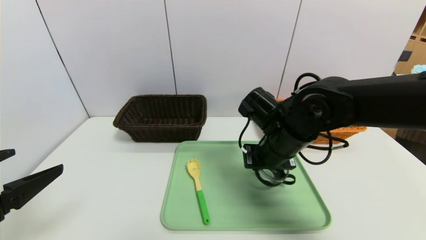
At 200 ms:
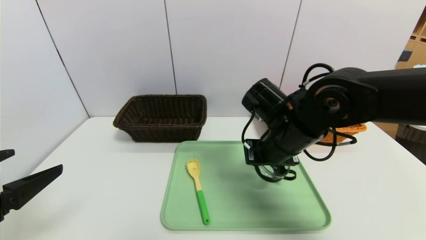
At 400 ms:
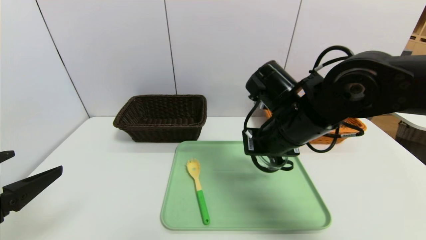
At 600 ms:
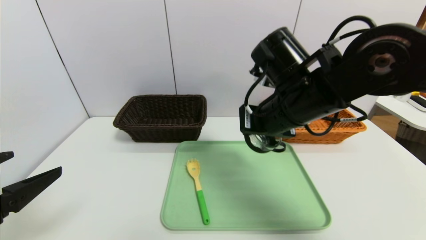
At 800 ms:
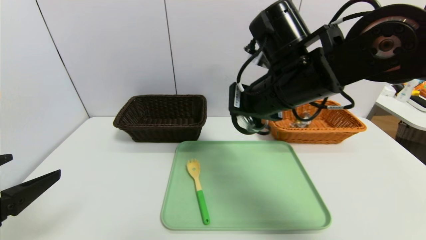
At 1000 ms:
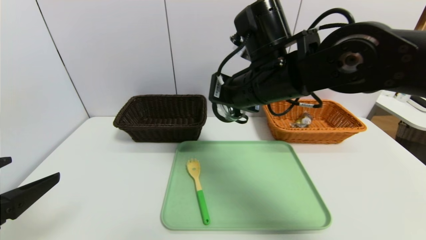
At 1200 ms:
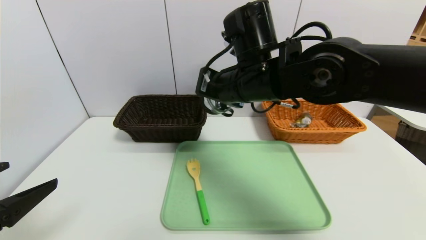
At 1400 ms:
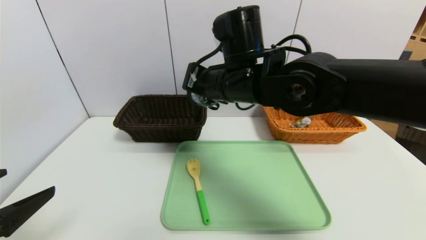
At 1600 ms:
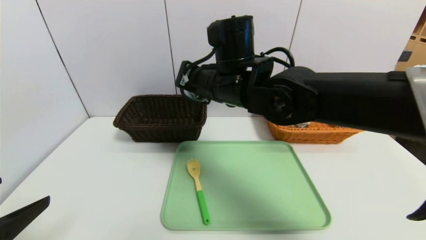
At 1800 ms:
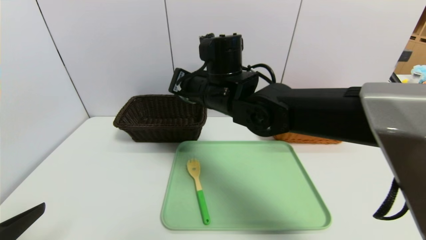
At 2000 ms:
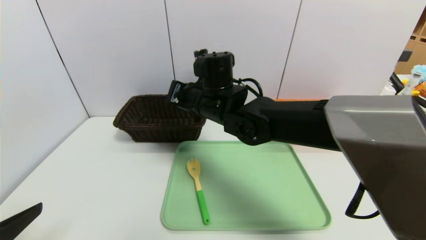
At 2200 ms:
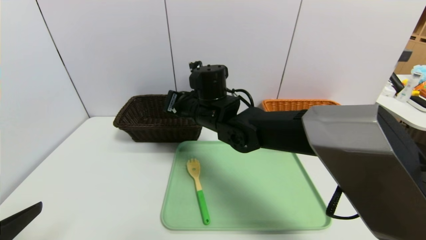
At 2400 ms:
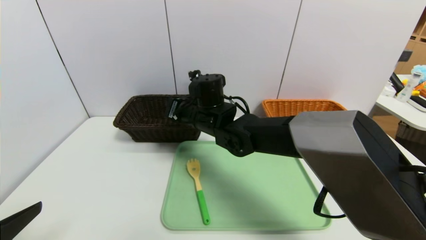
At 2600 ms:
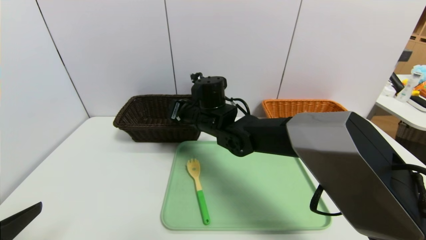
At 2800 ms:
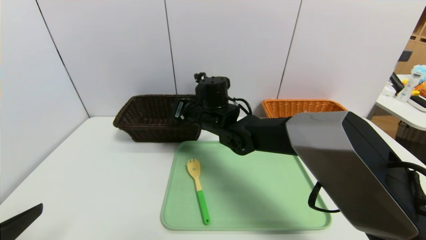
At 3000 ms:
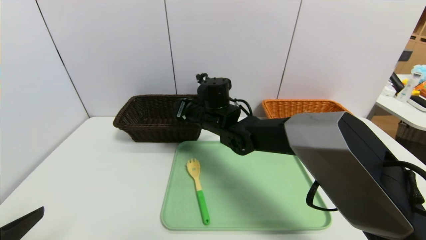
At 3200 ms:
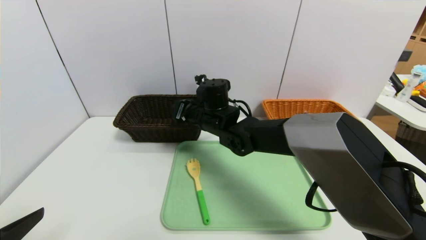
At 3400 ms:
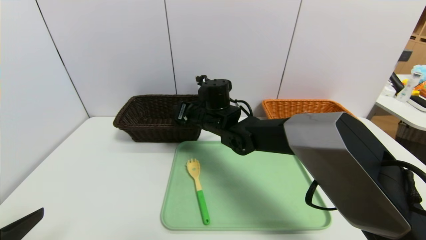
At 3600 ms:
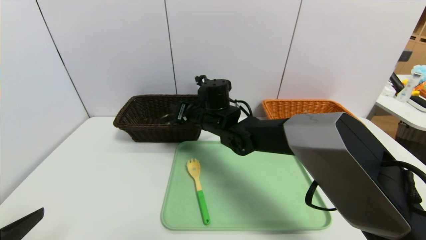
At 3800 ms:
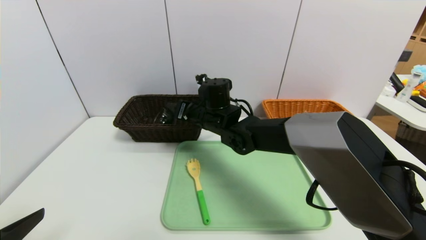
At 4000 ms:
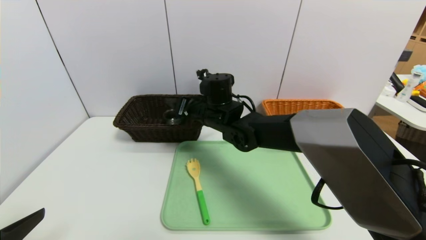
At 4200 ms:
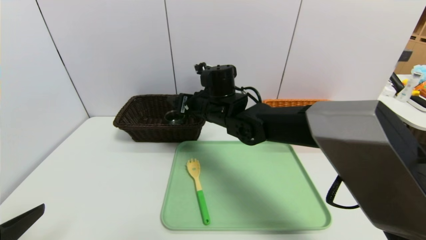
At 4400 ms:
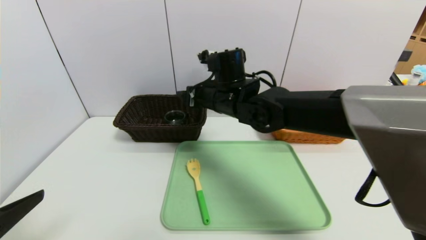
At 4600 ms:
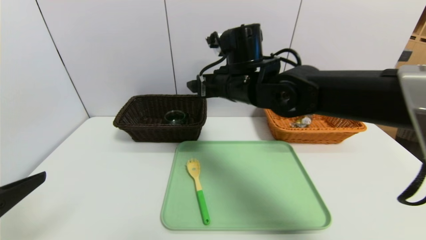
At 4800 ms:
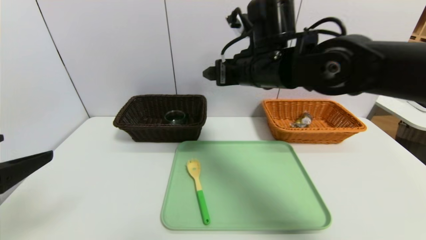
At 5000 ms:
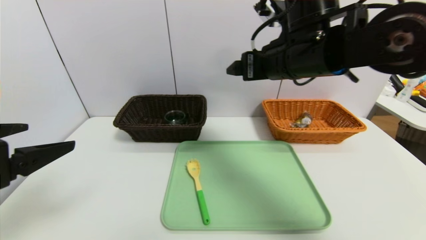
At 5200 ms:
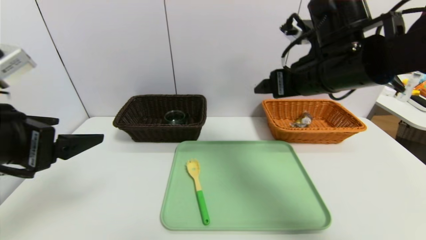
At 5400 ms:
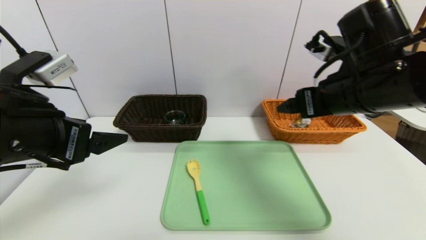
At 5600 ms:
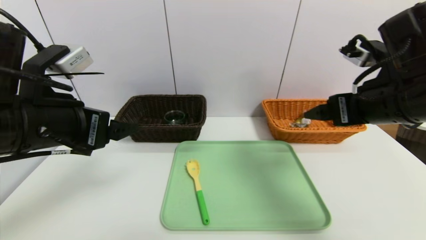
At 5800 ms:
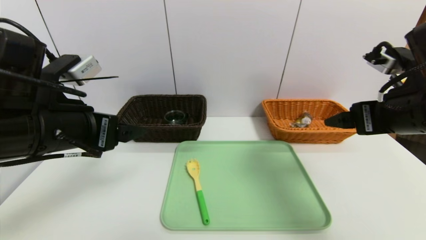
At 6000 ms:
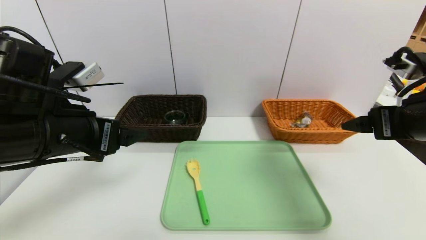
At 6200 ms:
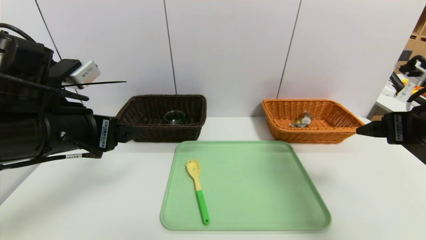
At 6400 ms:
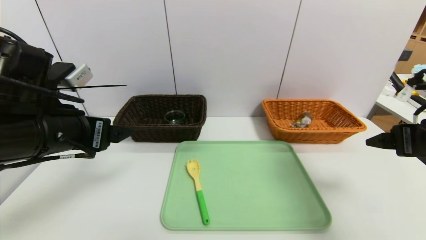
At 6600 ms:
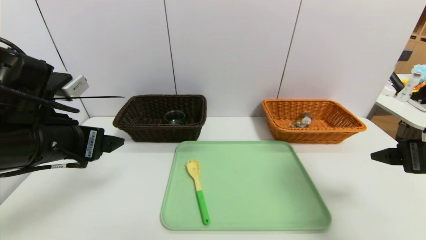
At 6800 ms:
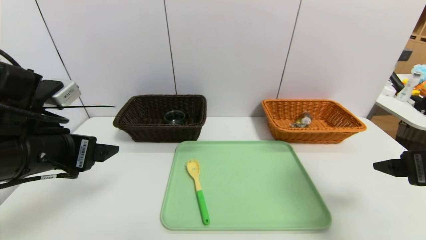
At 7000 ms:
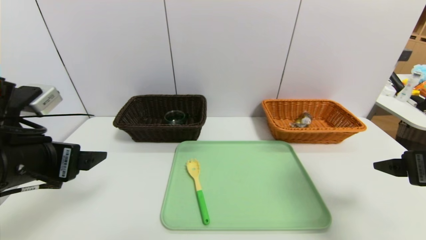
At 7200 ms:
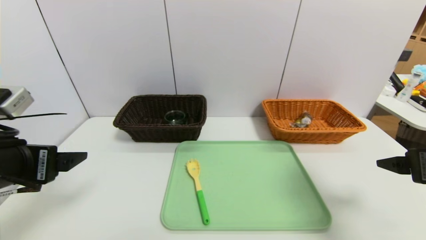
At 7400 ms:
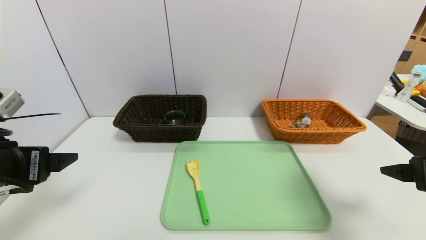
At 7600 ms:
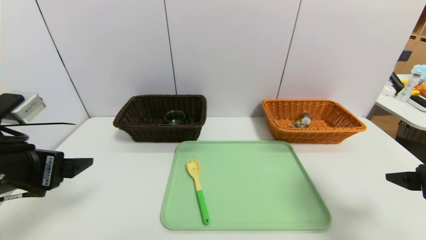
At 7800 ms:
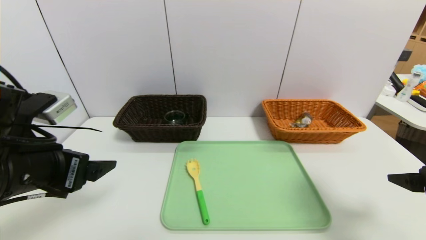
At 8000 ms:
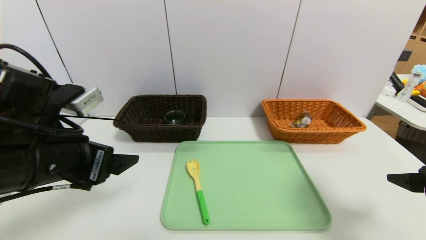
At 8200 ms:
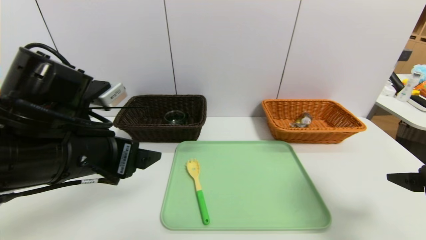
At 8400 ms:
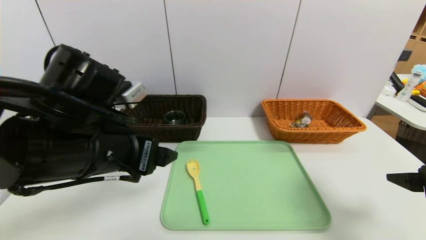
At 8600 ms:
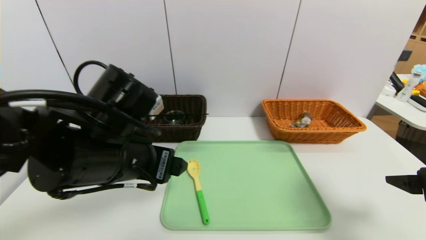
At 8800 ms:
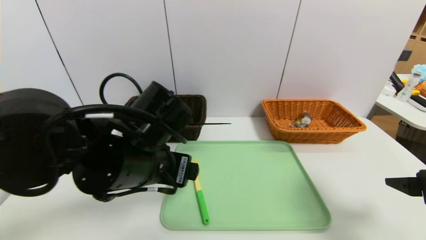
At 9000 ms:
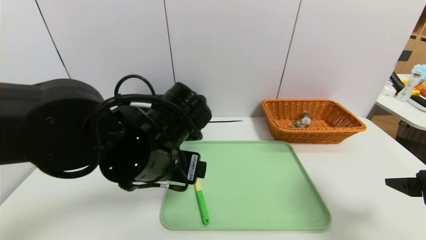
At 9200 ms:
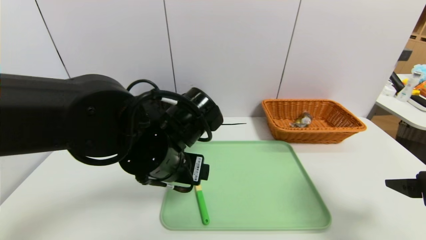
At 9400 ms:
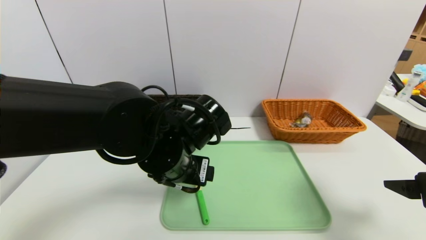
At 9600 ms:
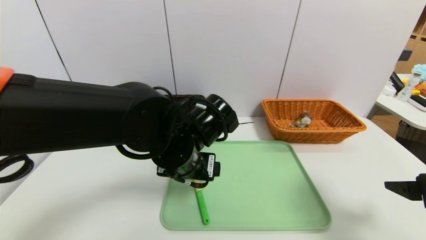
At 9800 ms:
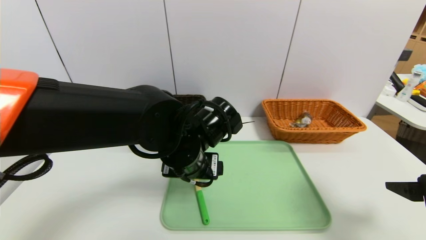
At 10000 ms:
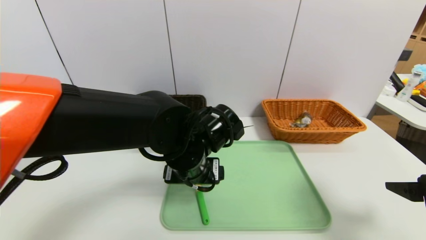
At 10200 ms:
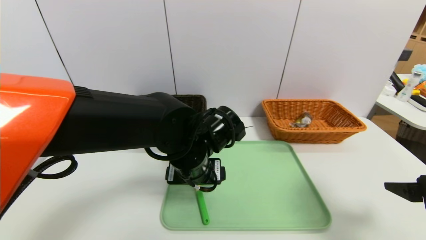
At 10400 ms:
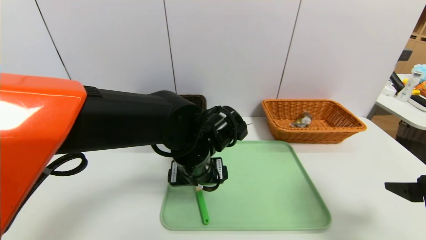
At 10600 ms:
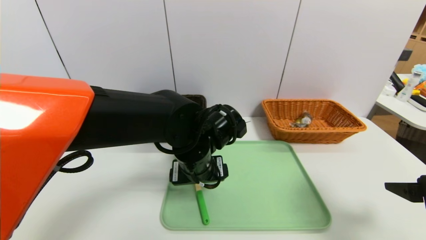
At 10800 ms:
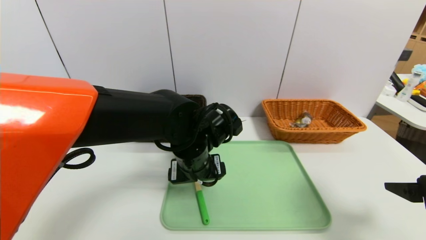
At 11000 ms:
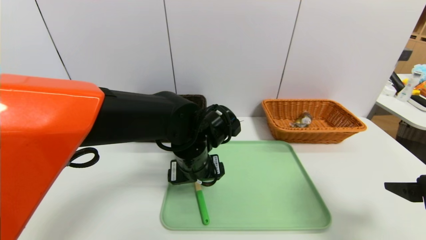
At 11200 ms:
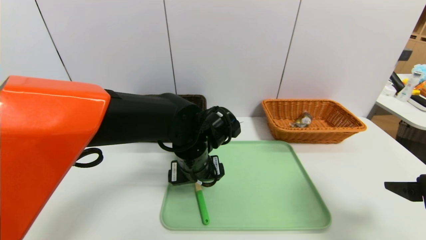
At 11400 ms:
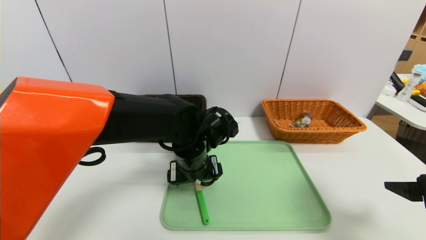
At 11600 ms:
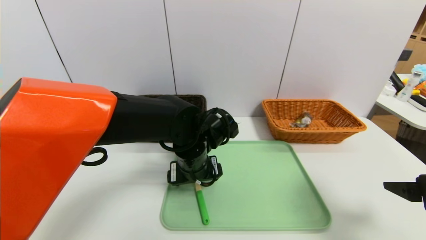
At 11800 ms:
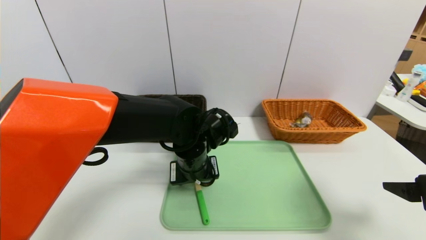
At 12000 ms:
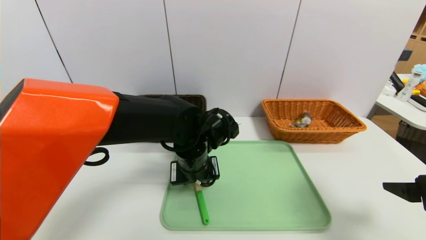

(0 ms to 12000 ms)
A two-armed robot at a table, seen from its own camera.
Task of the whole recording: place the food in the right basket with the right gripper, and place the non food items in the left basket with the left gripper.
0 ms - 1600 ms: The right gripper travels to the left and upward by approximately 15 cm.
1600 ms - 3000 ms: The right gripper travels downward and forward by some 15 cm.
3000 ms - 4400 ms: The right gripper heads upward, covering approximately 5 cm, and opens.
4400 ms - 6000 ms: The right gripper travels to the right and backward by approximately 30 cm; the left gripper travels forward and to the right by about 15 cm.
6000 ms - 7600 ms: The right gripper moves backward and downward, roughly 10 cm. Meanwhile the left gripper shifts approximately 5 cm to the left.
7600 ms - 9000 ms: The left gripper moves to the right, approximately 20 cm.
9000 ms - 10400 ms: The left gripper moves to the right, some 5 cm.
10400 ms - 12000 ms: The left gripper closes its fingers.

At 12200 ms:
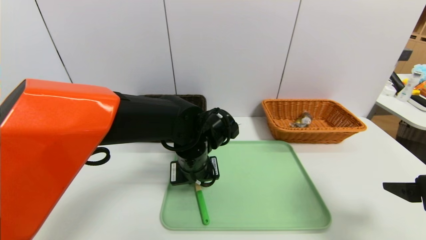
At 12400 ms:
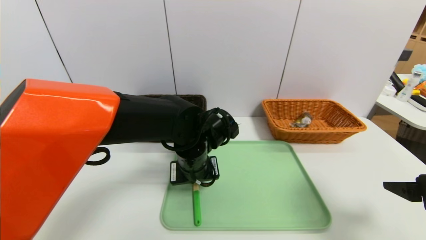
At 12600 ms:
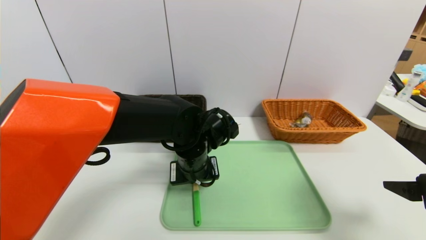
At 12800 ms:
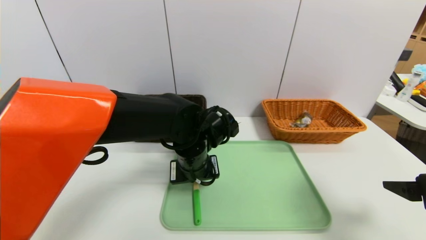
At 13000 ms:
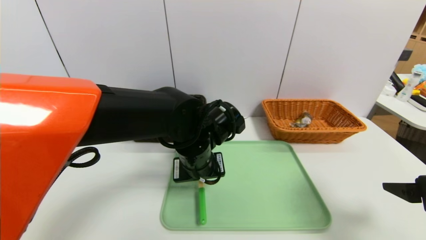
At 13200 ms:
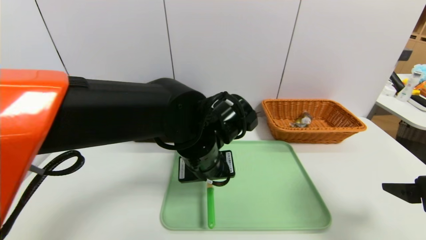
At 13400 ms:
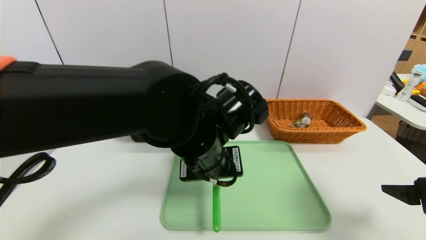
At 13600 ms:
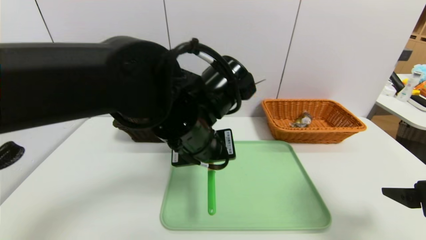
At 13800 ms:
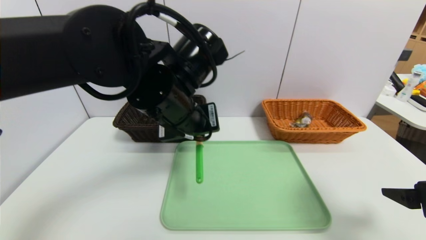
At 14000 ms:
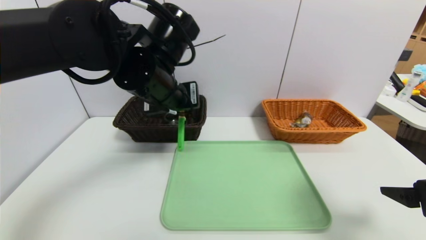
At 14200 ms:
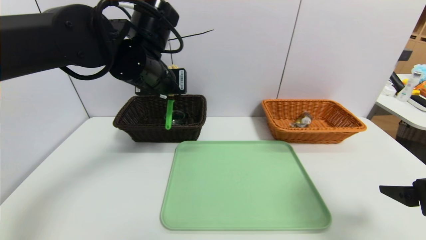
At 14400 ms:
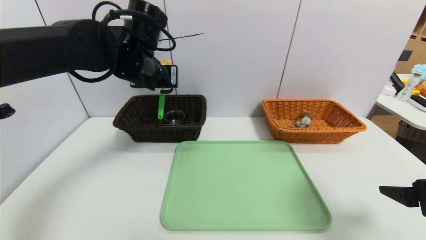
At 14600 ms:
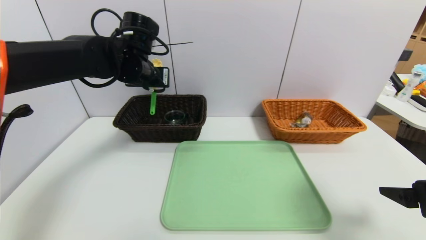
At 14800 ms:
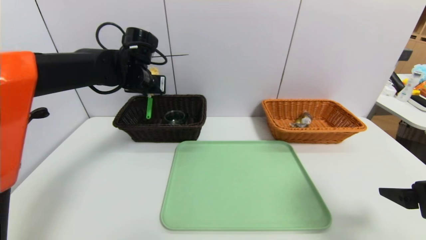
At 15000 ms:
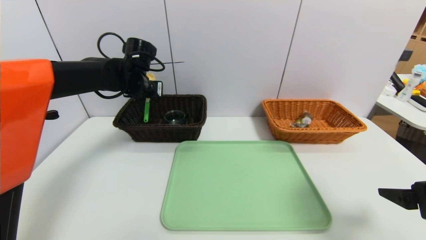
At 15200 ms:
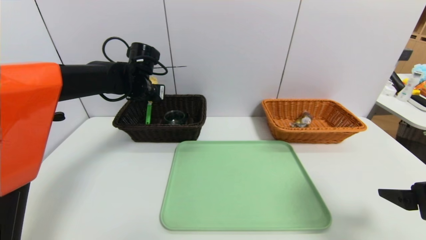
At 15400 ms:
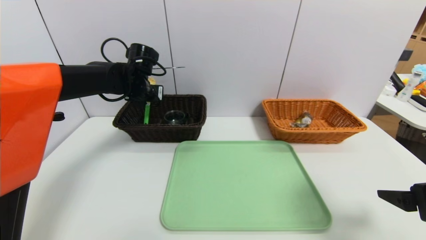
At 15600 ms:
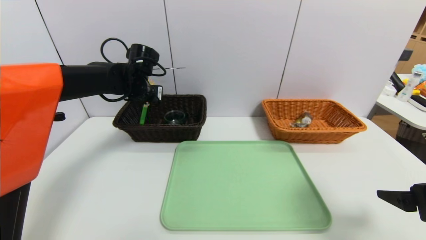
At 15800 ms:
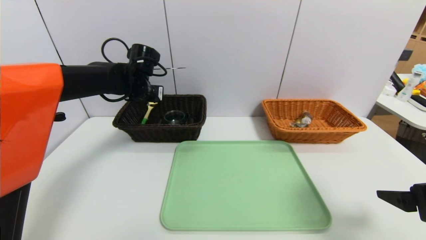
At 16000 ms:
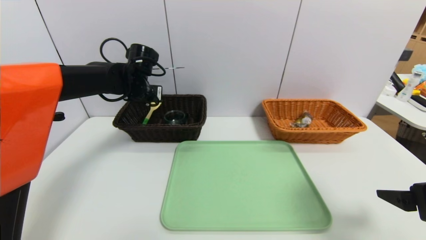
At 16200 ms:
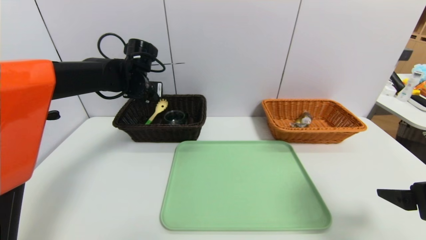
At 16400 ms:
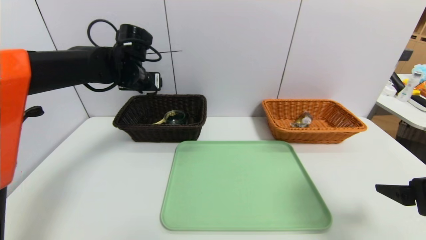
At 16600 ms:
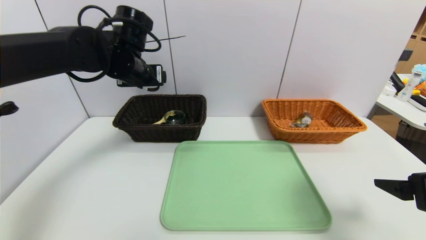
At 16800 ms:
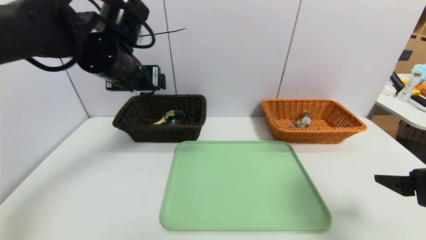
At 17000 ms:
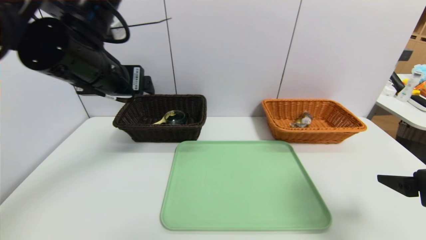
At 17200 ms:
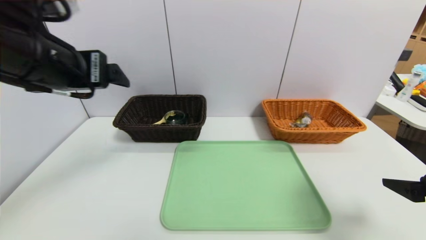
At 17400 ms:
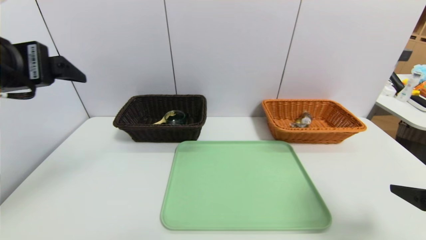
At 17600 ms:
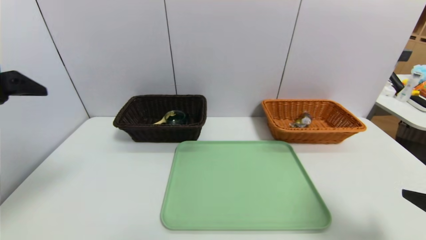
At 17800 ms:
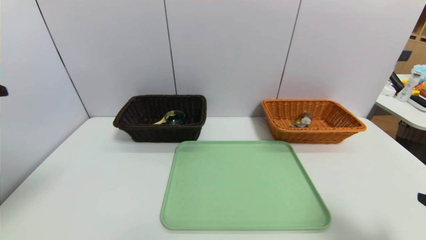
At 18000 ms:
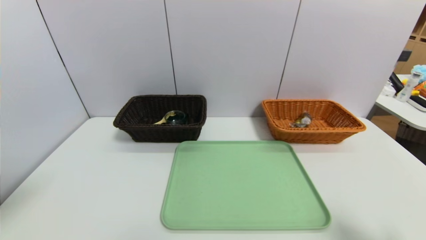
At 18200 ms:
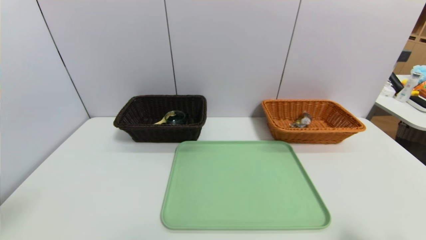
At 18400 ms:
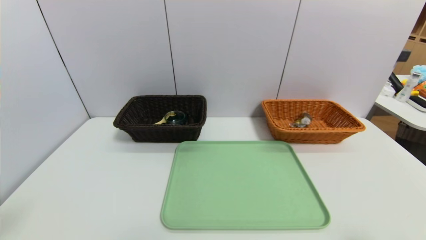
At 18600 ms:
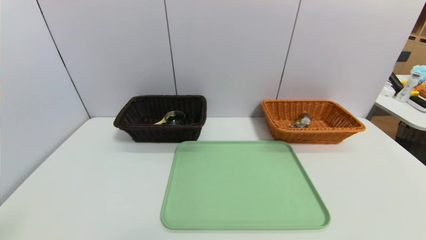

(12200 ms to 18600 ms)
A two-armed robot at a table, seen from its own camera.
Task of the whole recording: place the food in the right basket with the right gripper, and place the non food items in the left basket with the left gripper.
Step, 12200 ms - 16200 ms: Grasp the back scratcher and put it in the left basket.
12200 ms - 13800 ms: The left gripper heads upward, covering roughly 15 cm.
13800 ms - 15400 ms: The left gripper moves forward and to the left, some 20 cm.
15400 ms - 17000 ms: The left gripper is displaced backward and upward by roughly 20 cm, and opens up.
17000 ms - 18600 ms: The left gripper is displaced backward and to the left by roughly 30 cm; the right gripper shifts some 15 cm backward.
